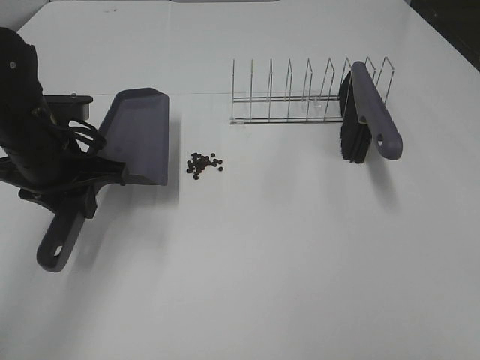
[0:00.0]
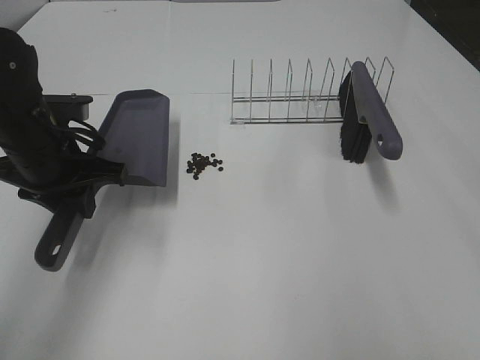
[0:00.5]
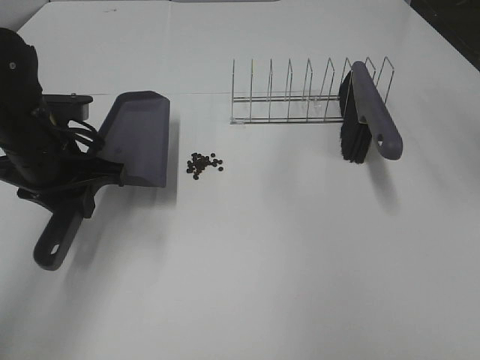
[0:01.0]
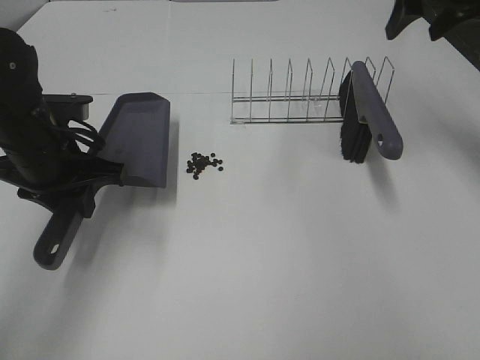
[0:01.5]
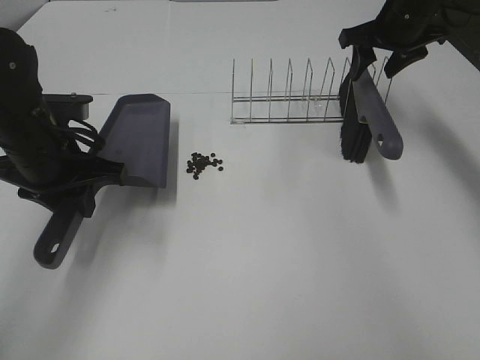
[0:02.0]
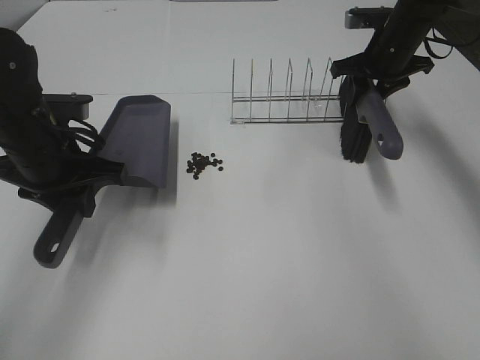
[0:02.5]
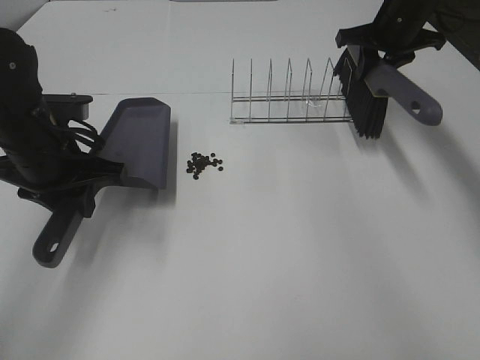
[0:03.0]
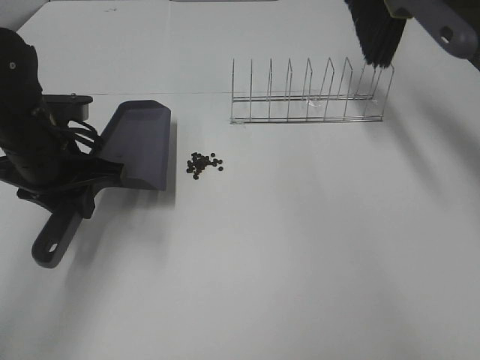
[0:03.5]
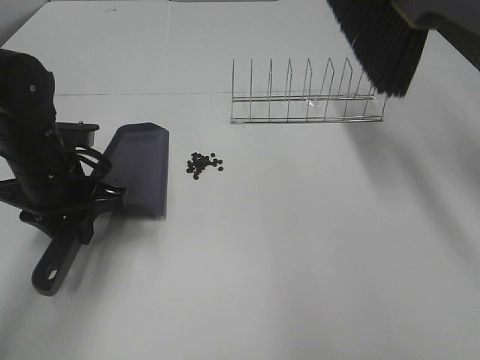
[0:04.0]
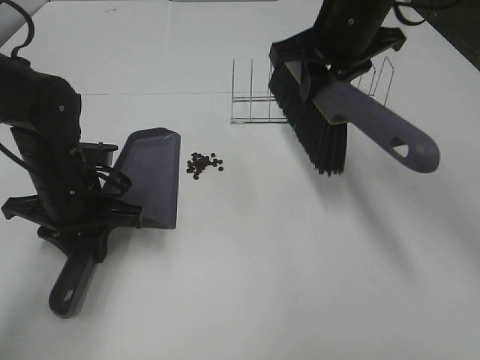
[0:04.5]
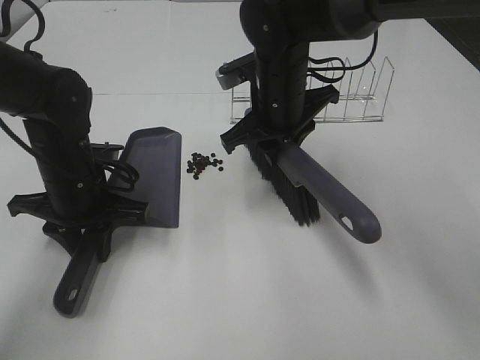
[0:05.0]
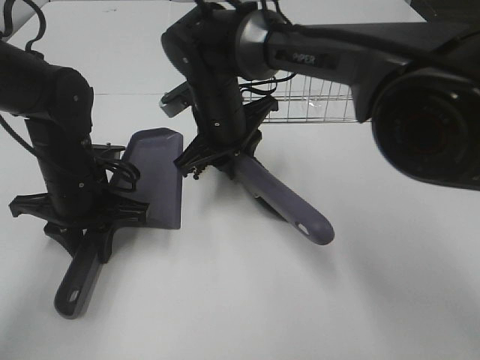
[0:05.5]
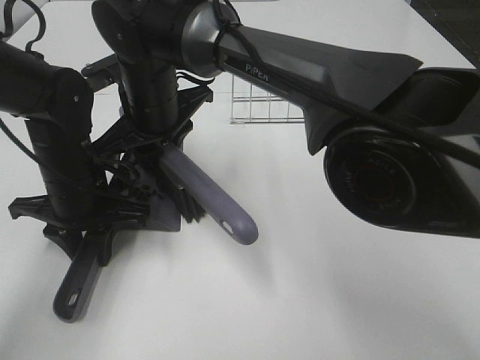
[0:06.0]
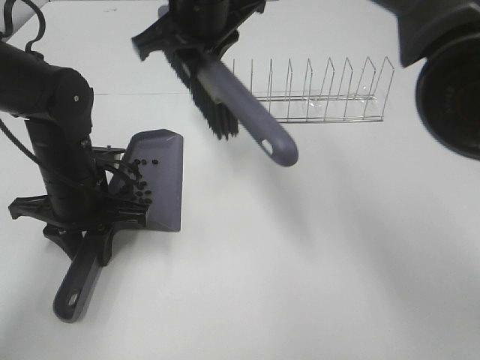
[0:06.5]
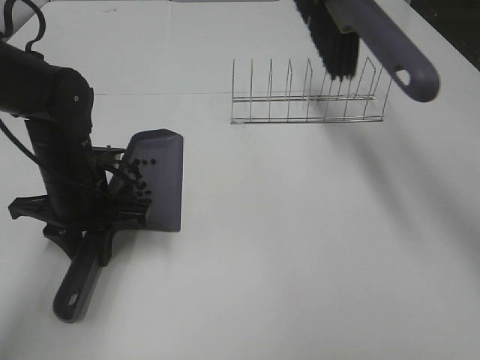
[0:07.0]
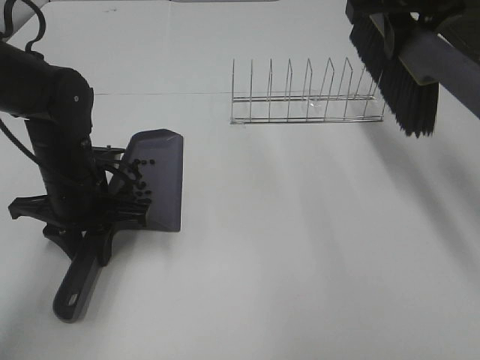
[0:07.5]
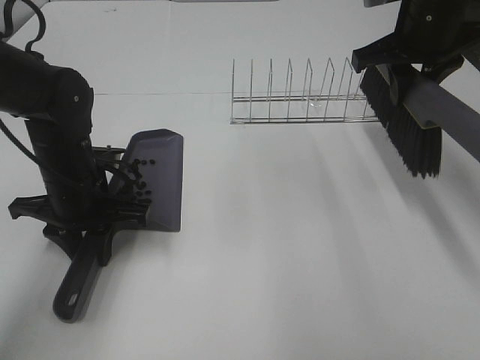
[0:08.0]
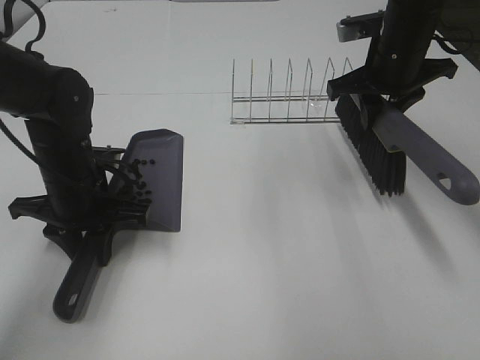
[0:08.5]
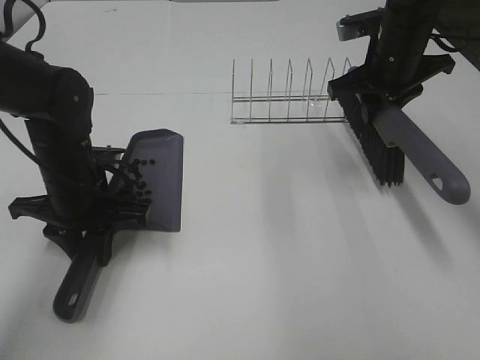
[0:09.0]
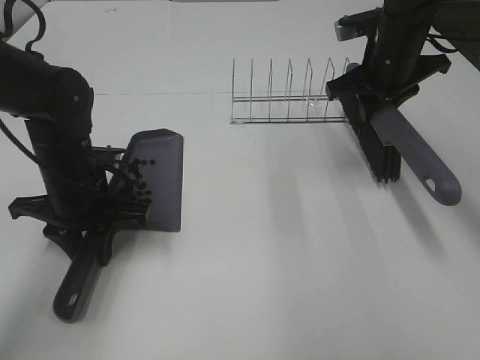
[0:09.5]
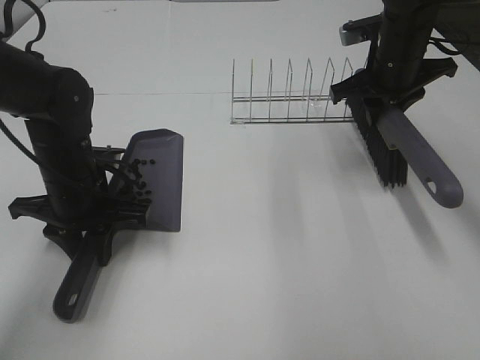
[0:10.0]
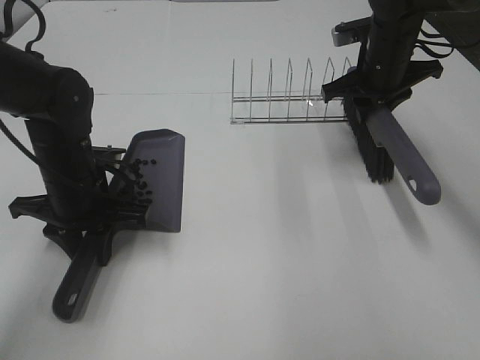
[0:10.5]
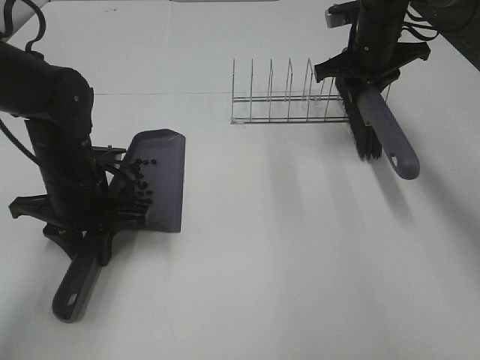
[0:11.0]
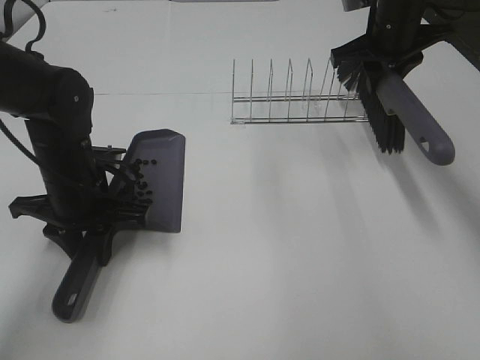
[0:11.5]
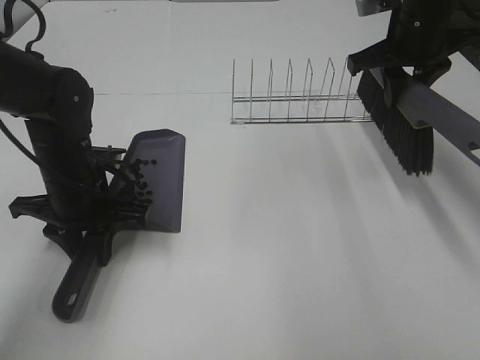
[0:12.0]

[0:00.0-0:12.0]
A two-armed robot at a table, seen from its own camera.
Task of the whole recording: Sweep Coffee Bean.
Step, 0:00.0 to 0:02.0: Right hand:grab the broom.
Step, 0:02.5 to 0:06.0: Right hand:sweep the coffee beans into the dustpan.
0:00.0 to 0:02.0: The right gripper heads forward, covering approximately 50 cm.
0:02.0 to 0:04.0: The right gripper goes roughly 20 cm upward and backward, and closes its fingers.
0:04.0 to 0:06.0: The right gripper shifts some 35 cm to the left and downward.
0:06.0 to 0:08.0: The right gripper shifts approximately 30 cm to the right.
0:08.0 to 0:10.0: The right gripper shifts approximately 5 cm downward.
0:10.0 to 0:12.0: There are only small adjustments of the grippers.

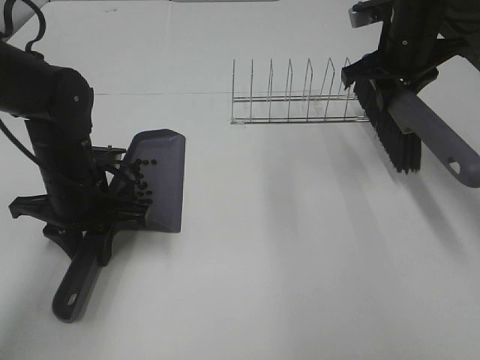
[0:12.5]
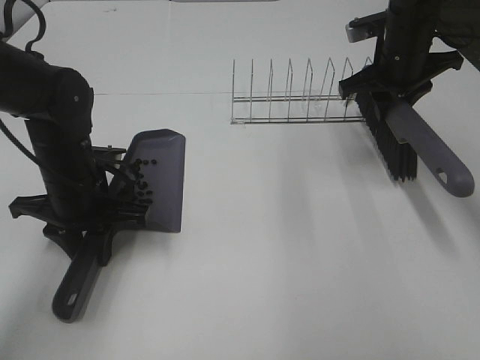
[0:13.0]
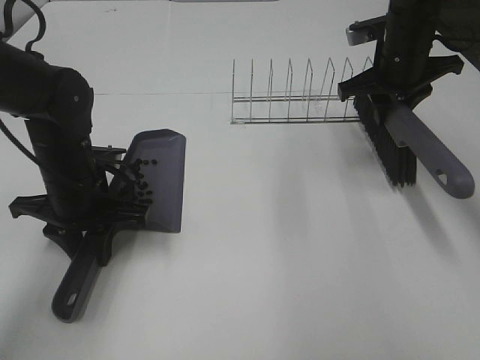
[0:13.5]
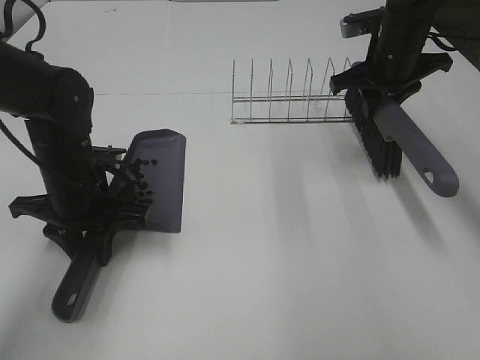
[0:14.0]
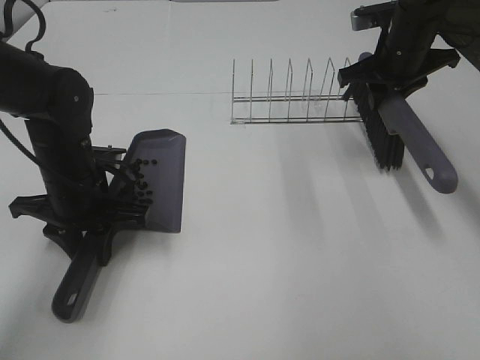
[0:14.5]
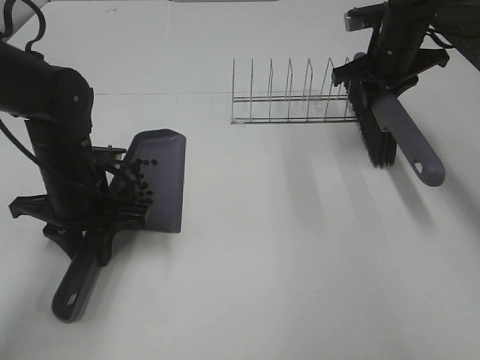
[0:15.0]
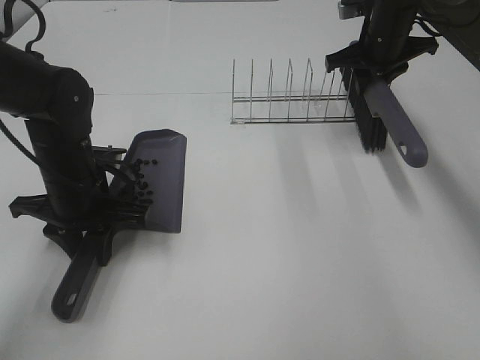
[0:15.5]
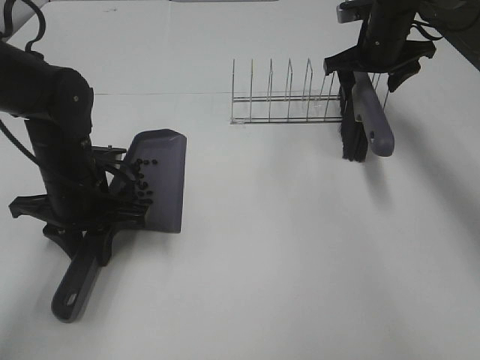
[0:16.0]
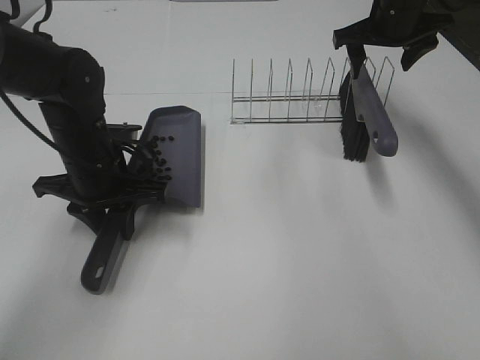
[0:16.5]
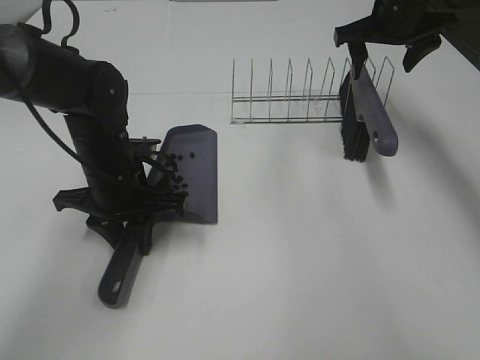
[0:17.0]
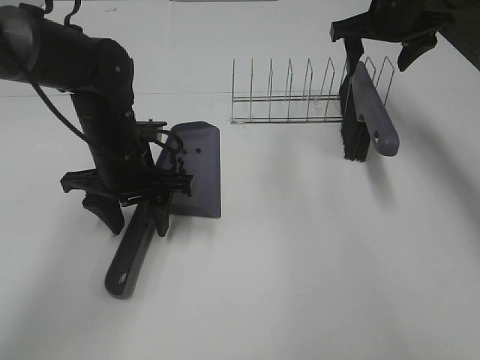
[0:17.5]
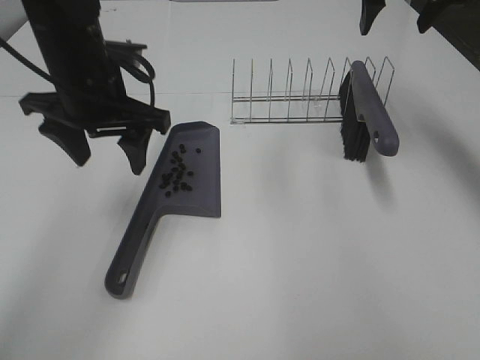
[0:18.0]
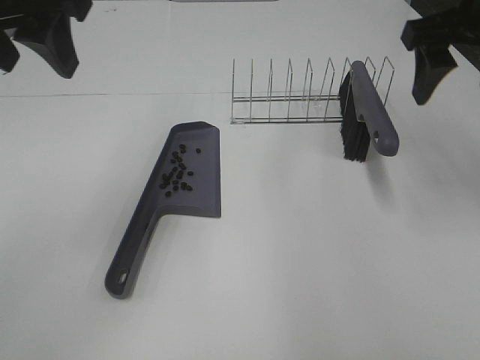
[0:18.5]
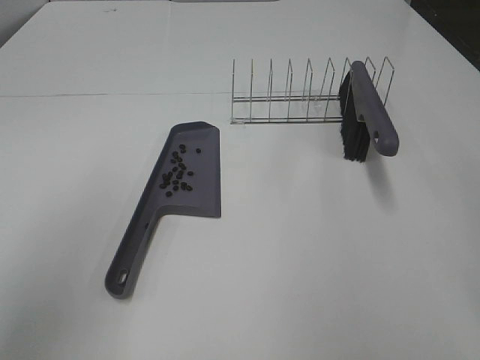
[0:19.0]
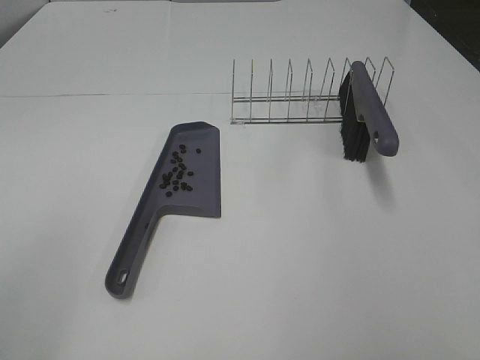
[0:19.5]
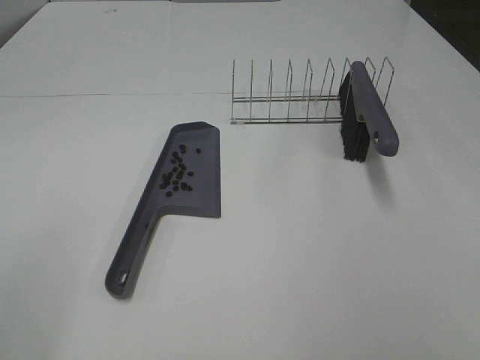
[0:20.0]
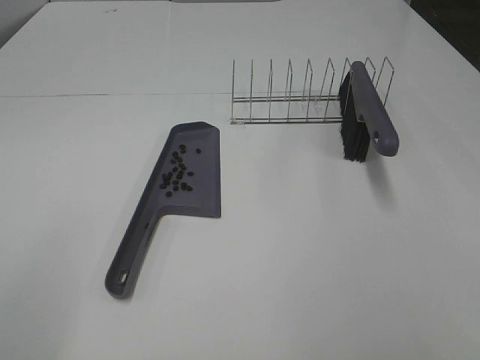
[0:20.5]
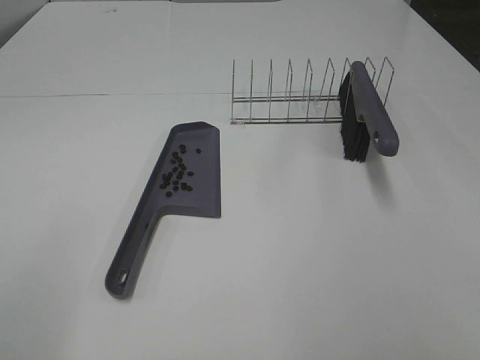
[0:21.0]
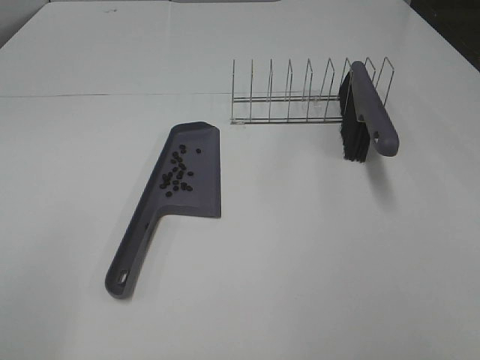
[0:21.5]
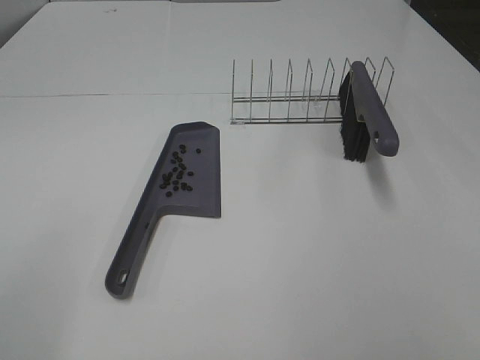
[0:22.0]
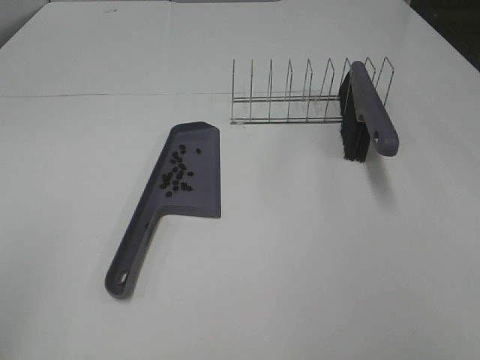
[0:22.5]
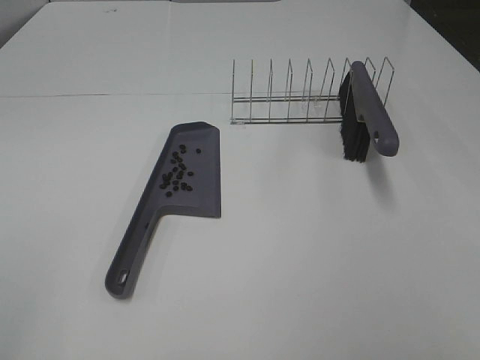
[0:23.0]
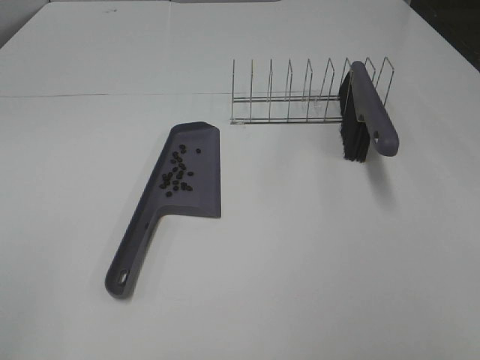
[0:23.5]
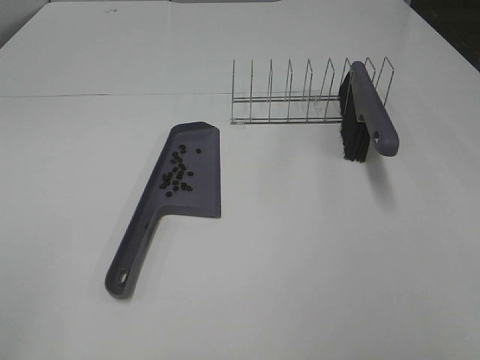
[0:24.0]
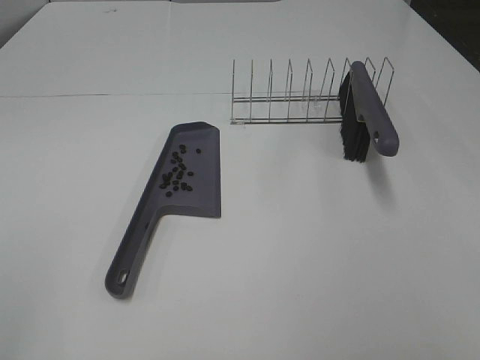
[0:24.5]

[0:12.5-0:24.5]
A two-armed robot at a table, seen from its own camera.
Task of the whole recording: Sweep Coffee Bean.
Step, 0:12.5 to 0:15.5: Right hand:place the broom on the rack.
Step, 0:16.0 to 0:17.5: Left hand:place the dustpan on the table.
0:12.5 to 0:14.5: The grippers make only small movements.
0:14.5 to 0:16.5: The right gripper ends up roughly 5 cm from where it was, and opens.
0:16.5 to 0:18.5: The right gripper shifts some 20 cm backward and upward. Meanwhile the left gripper goes some 25 cm upward, and opens up.
0:18.5 to 0:20.5: The left gripper is displaced backward and to the left by roughly 25 cm. Meanwhile the right gripper travels backward by roughly 30 cm.

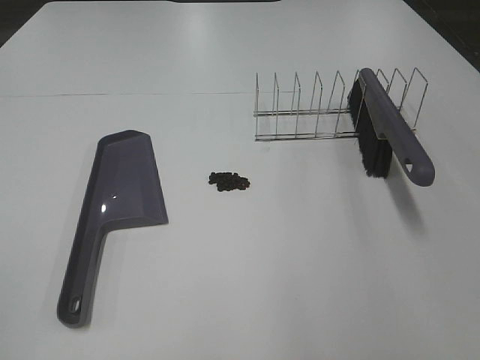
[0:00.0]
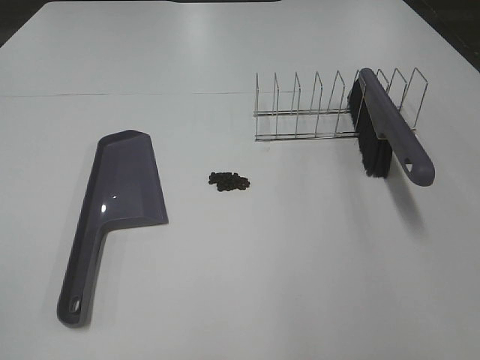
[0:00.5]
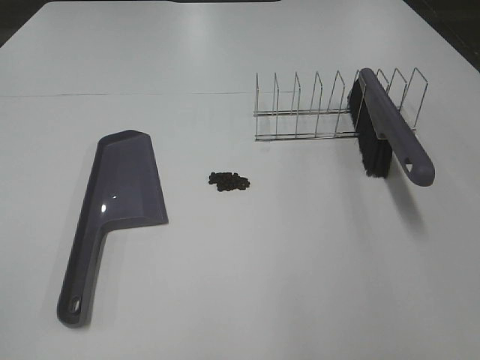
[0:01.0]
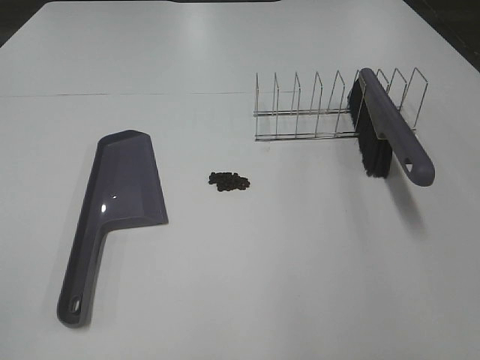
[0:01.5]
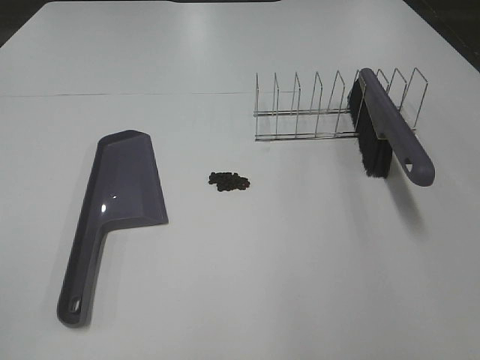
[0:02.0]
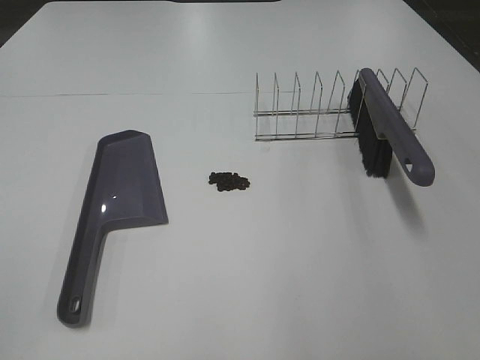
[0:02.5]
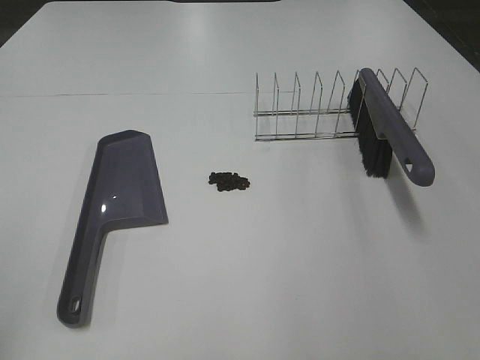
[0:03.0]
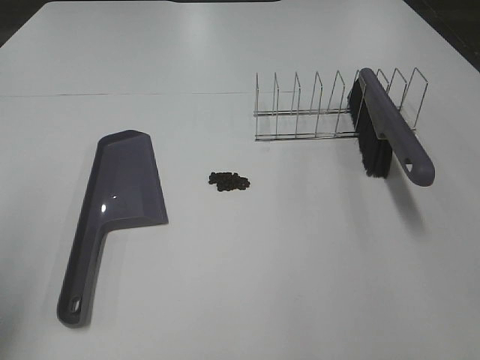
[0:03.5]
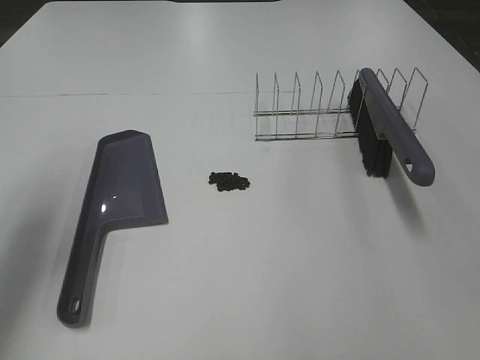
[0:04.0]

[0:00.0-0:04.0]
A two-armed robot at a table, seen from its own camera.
Task of the whole recording: Sweep Coffee Bean.
0:00.0 to 0:02.0: The two grippers keep their place.
0:02.0 to 0:04.0: The left gripper heads forward, covering approximately 25 cm.
